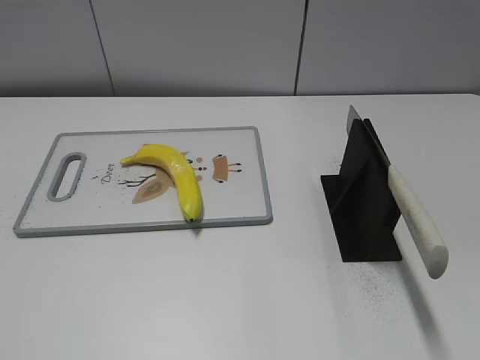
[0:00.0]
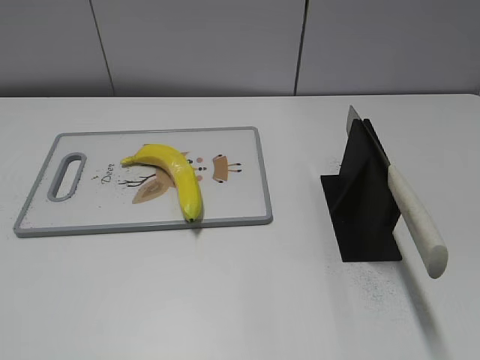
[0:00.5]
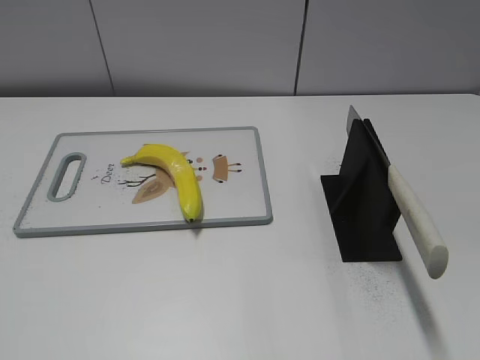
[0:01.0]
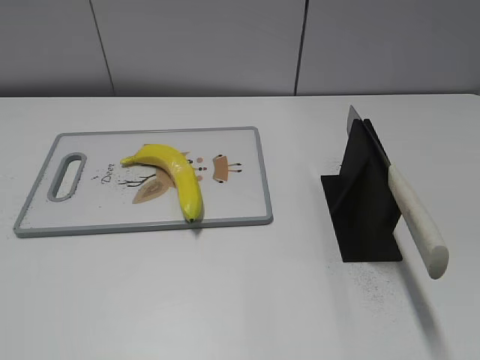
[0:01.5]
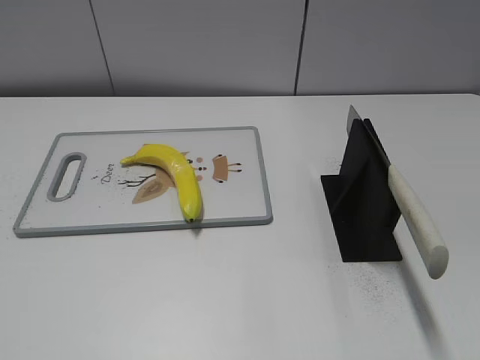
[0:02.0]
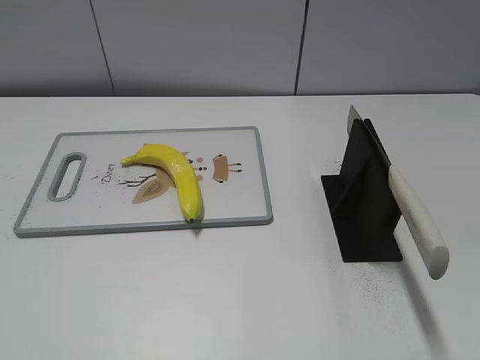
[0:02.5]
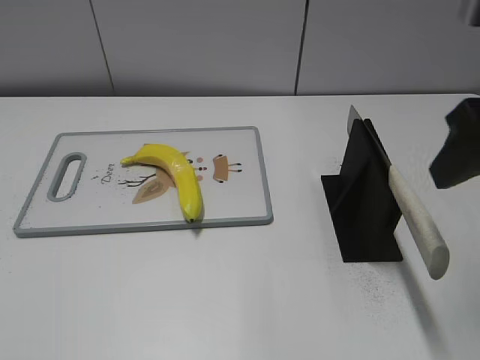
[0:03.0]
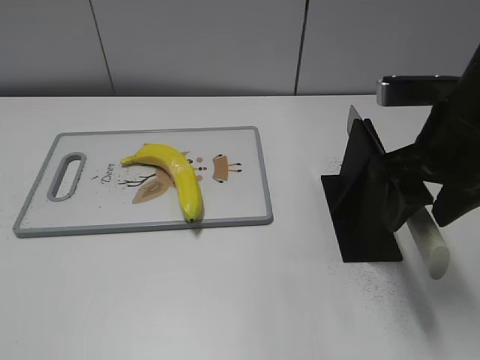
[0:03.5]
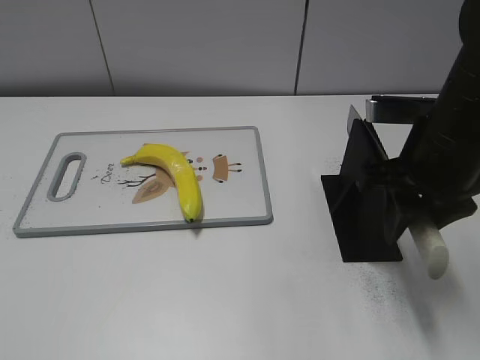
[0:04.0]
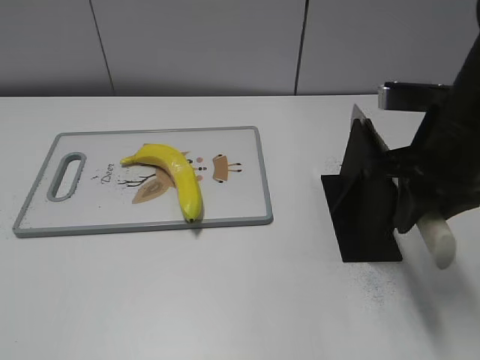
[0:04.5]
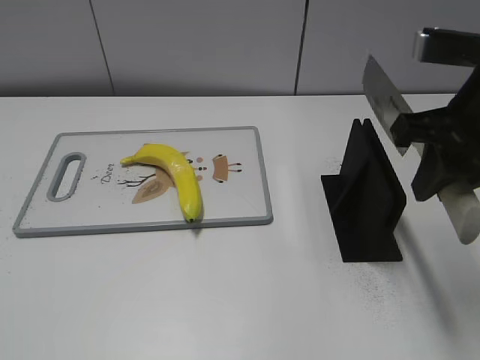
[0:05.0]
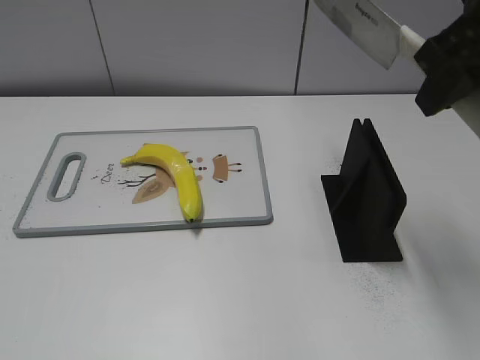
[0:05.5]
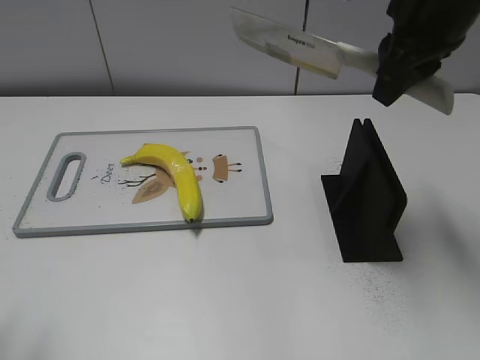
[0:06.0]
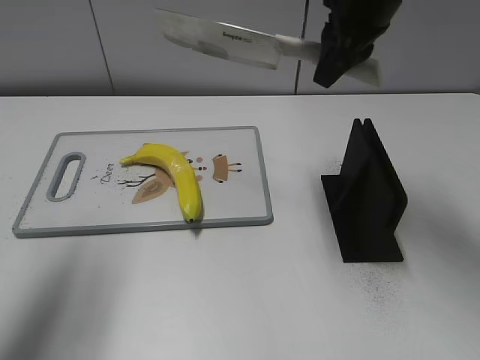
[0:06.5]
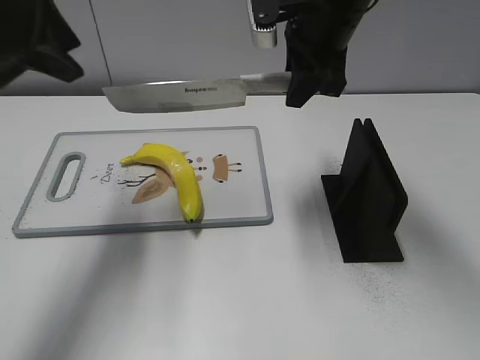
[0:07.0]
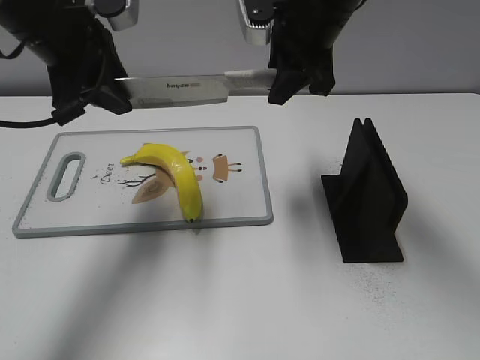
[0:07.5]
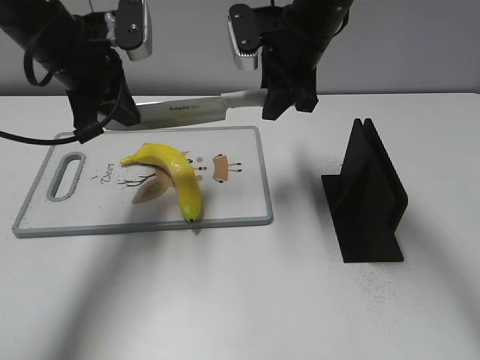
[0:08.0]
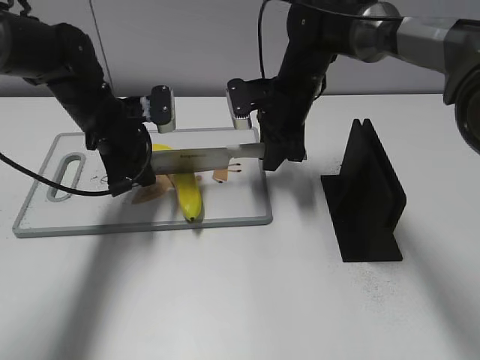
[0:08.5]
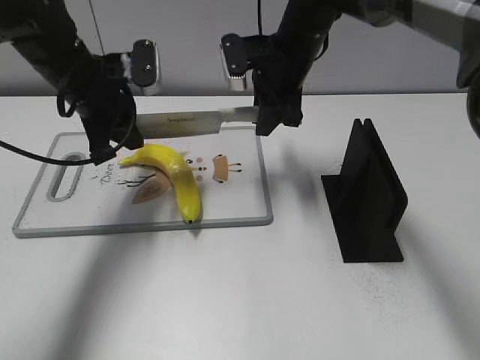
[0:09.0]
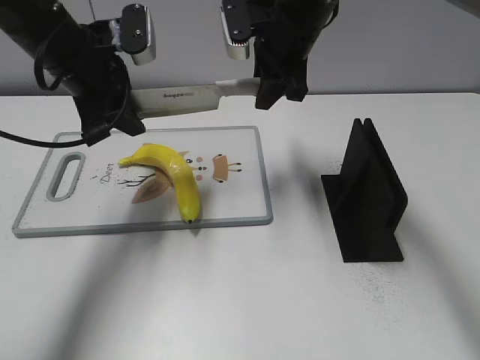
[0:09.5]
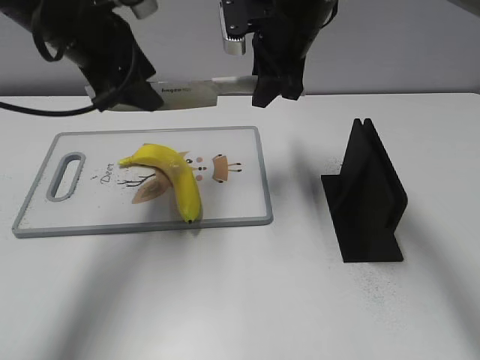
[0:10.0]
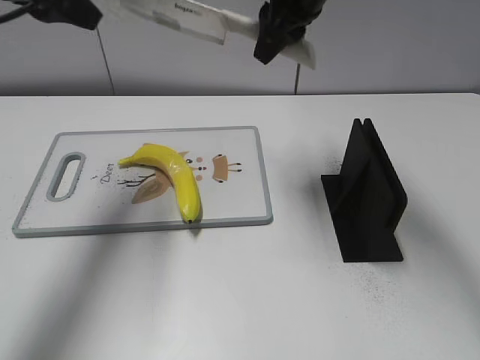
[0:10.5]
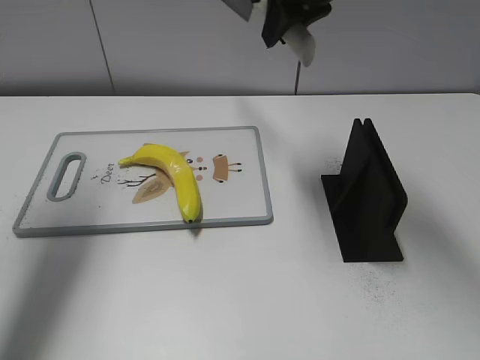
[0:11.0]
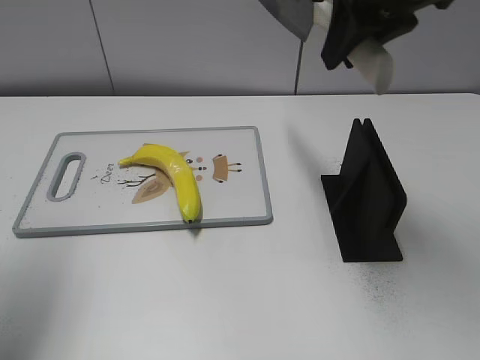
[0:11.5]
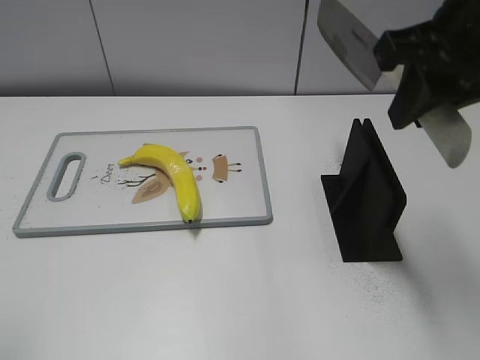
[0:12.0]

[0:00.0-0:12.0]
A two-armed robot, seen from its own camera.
Task of the whole recording: cut plastic banana.
Step, 0:00.0 to 0:05.0: Grab the knife handle with your right hand.
Step, 0:05.5 to 0:09.5: Lift the knife with your right hand.
Step, 0:10.0 to 0:10.5: Cut the banana with your right hand.
0:02.0 to 0:04.0: The right gripper goes approximately 30 cm forward, to the left and downward, and closes its fingers.
0:04.0 to 0:06.0: The right gripper goes about 10 cm upward and forward.
0:06.0 to 0:08.0: The left gripper goes roughly 30 cm forward and to the right, and closes its fingers. Meanwhile the right gripper is displaced forward, to the left and downward by about 15 cm.
0:08.0 to 0:10.0: The right gripper reaches roughly 10 cm downward, then returns. Meanwhile the left gripper reaches roughly 10 cm downward, then returns, and opens up.
0:10.0 to 0:12.0: The right gripper goes approximately 25 cm backward, to the right and upward. The left gripper is displaced backward and to the left by about 30 cm.

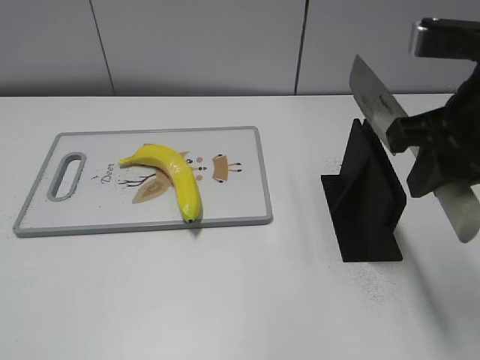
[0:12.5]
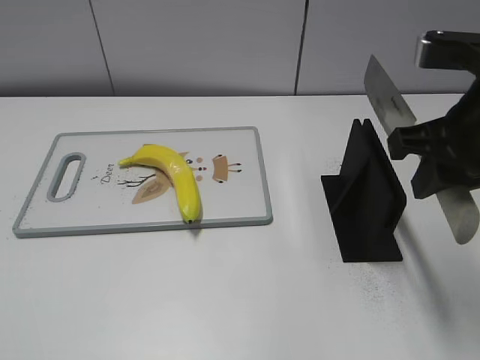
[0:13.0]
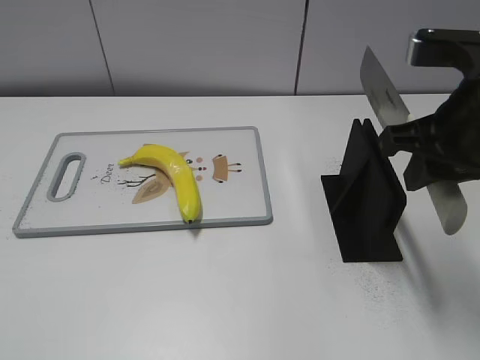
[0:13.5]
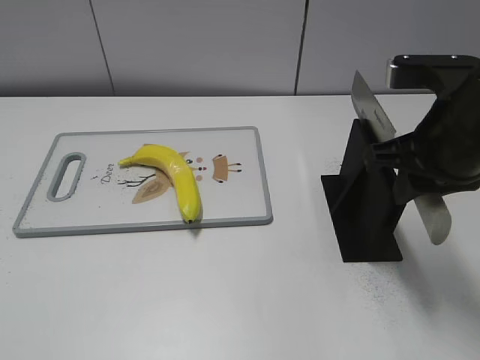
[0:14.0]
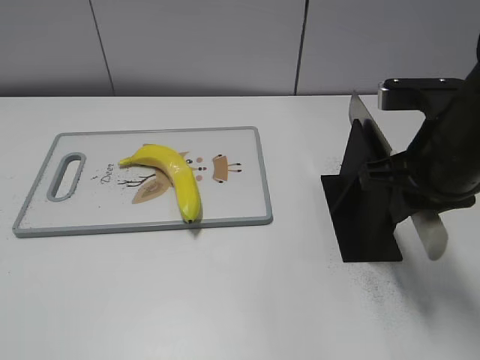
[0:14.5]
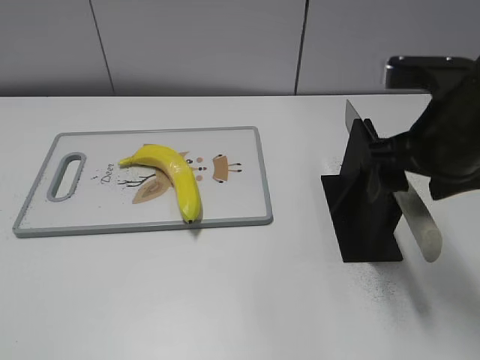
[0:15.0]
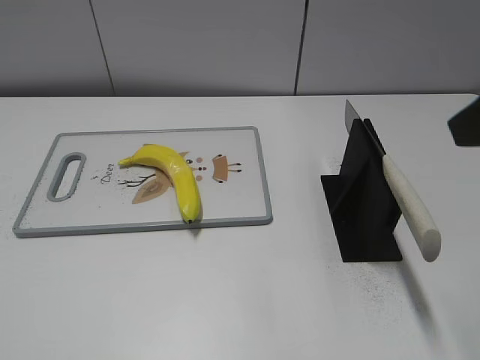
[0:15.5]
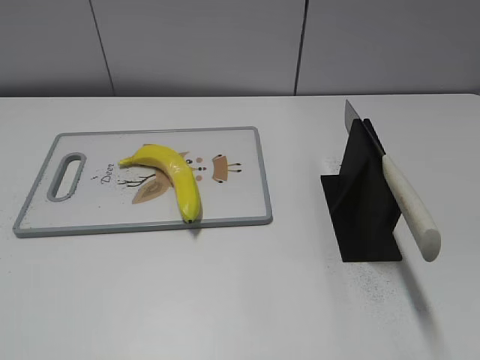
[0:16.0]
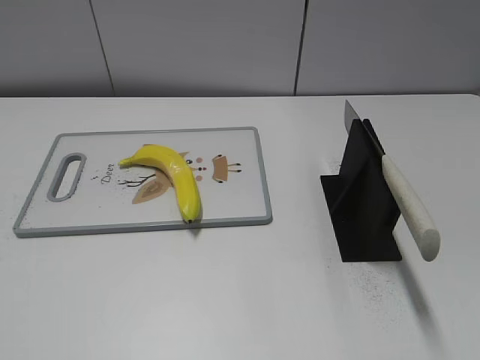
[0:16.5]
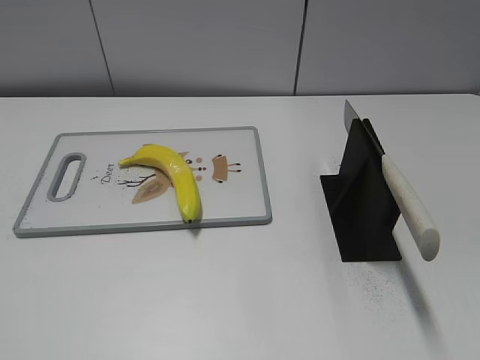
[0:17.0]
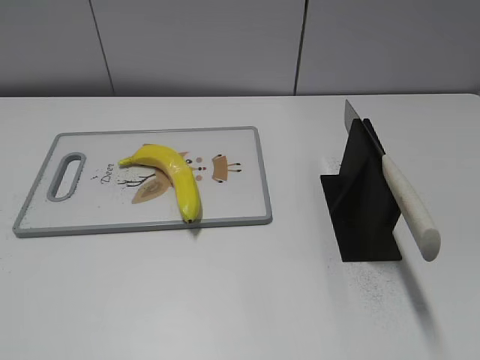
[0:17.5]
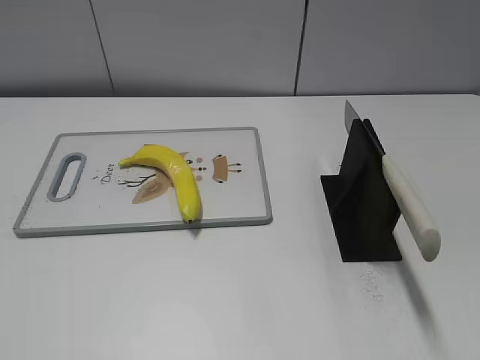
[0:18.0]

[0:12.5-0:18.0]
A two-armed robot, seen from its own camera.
Task of the whole recording: cut plastic banana.
Step, 0:13.0 to 0:18.0: Place the knife on the storage rack with your right hand.
0:12.5 to 0:14.5: The right gripper heads downward, covering roughly 5 cm.
0:14.5 to 0:16.0: The right gripper heads backward, to the right and upward, covering approximately 20 cm, and opens up.

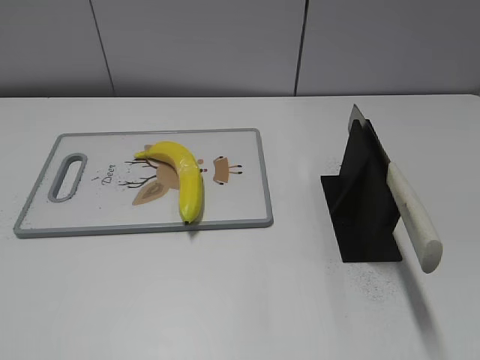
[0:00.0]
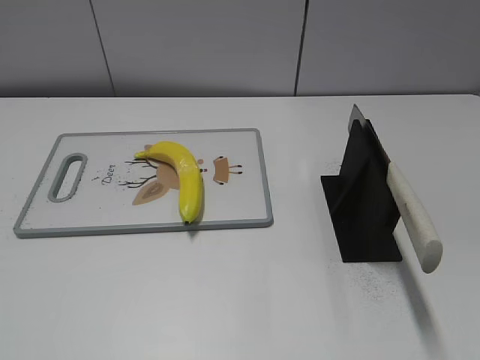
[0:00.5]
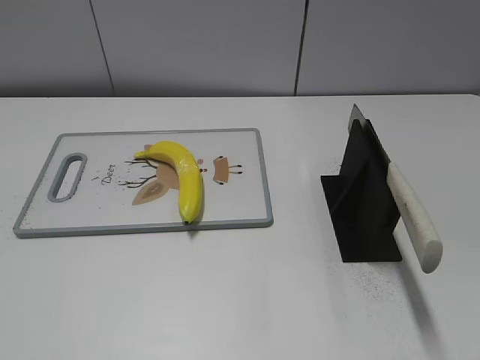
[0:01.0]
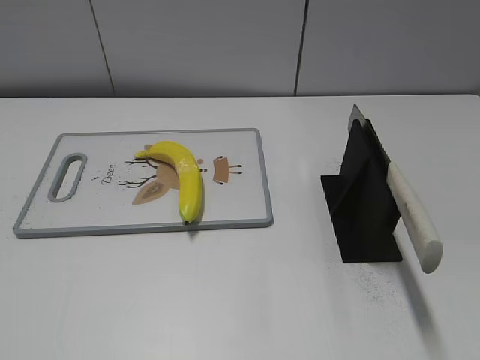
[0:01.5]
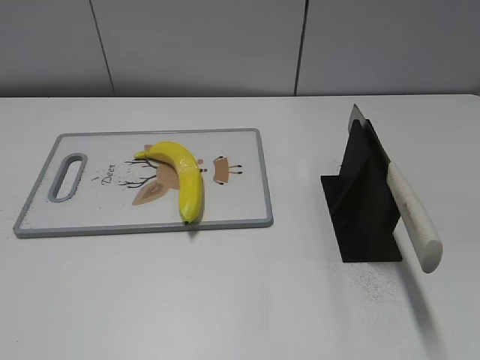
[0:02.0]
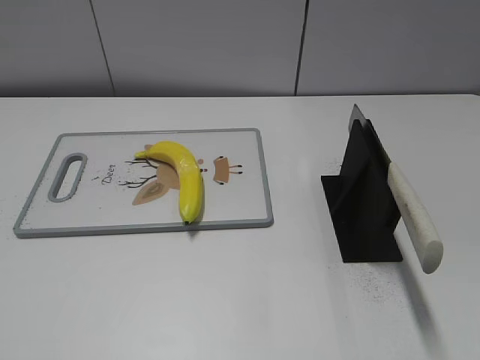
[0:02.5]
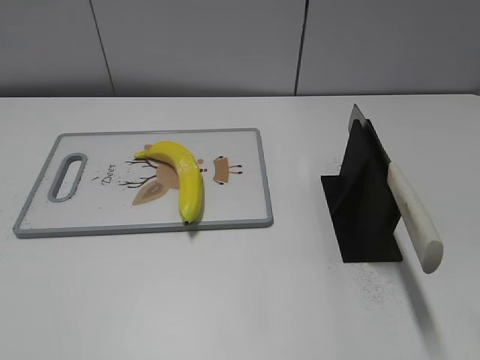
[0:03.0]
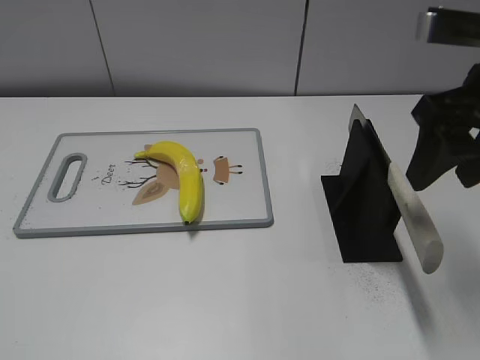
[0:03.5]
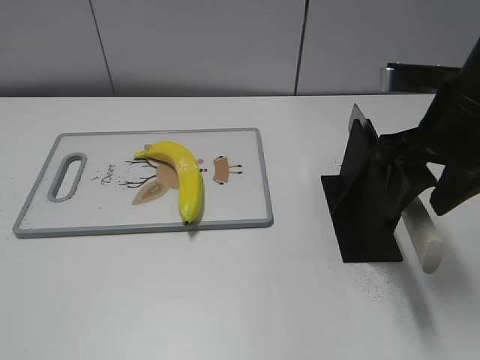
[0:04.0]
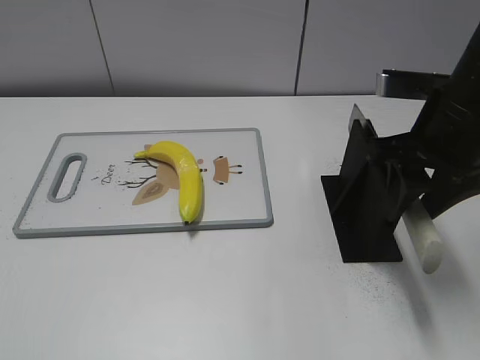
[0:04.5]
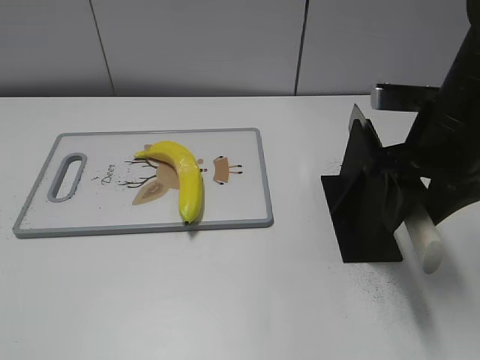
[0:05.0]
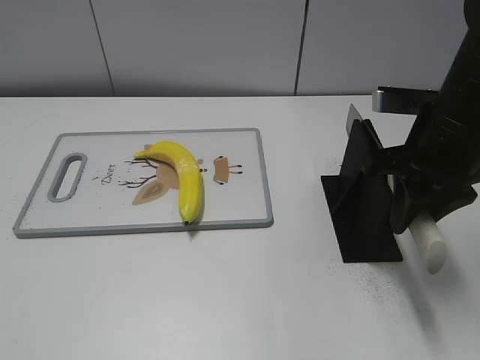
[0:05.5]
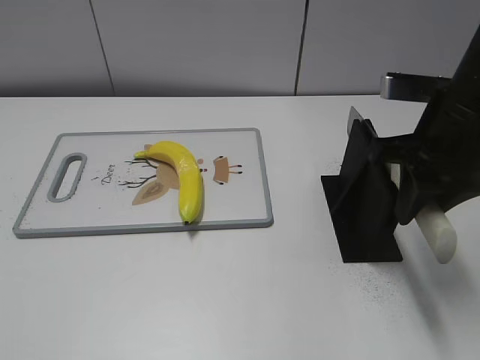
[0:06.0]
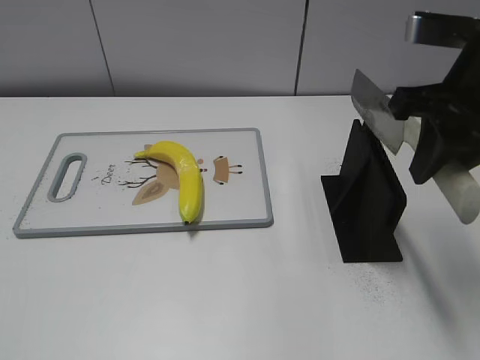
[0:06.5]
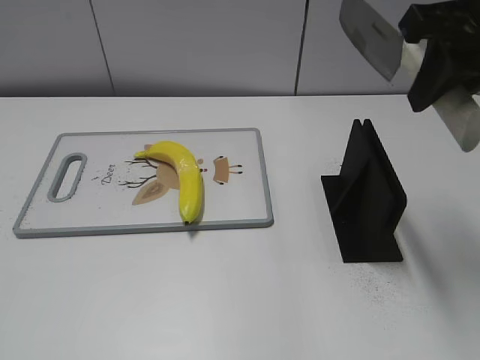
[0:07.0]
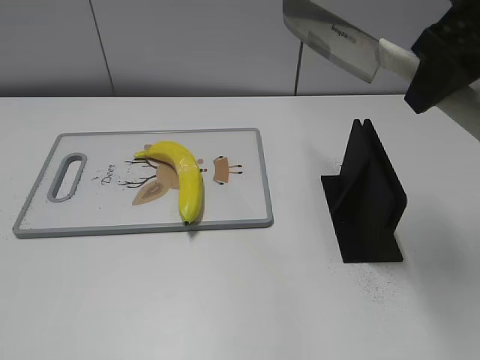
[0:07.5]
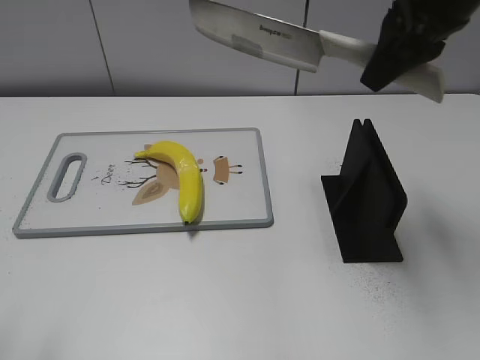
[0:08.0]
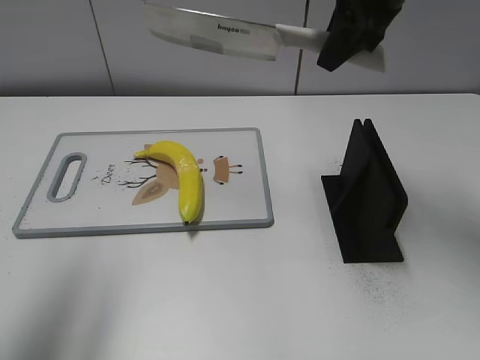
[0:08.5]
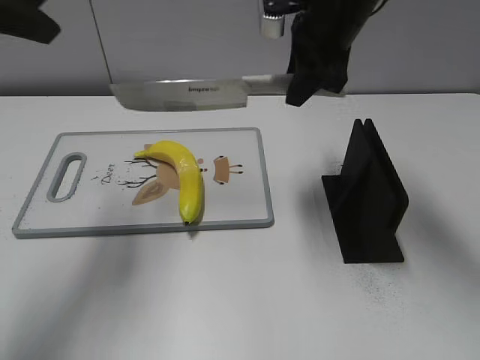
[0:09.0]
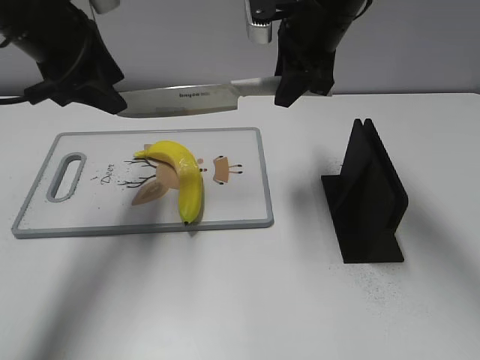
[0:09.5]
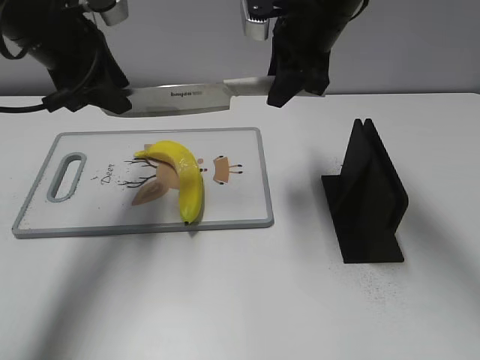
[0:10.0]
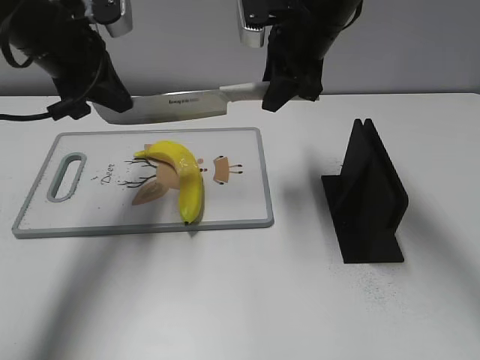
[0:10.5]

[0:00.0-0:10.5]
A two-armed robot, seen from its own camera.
Task of the whole recording: cut plastic banana.
Step, 0:00.0 to 0:06.5: Grab the knife handle with your right hand.
0:02.0 to 0:04.0: The right gripper heads forward, covering about 25 cm.
0:04.0 to 0:06.5: The right gripper closes up.
0:06.5 to 0:08.5: The left gripper goes about 25 cm forward and upward. Meanwhile the right gripper is displaced forward and to the left by about 15 cm.
0:08.5 to 0:10.5: The right gripper is displaced downward and to the left by roughly 10 cm. Meanwhile the left gripper heads forward, downward and to the right, covering approximately 25 cm, and closes up.
